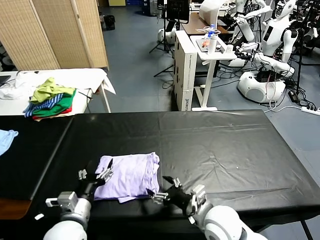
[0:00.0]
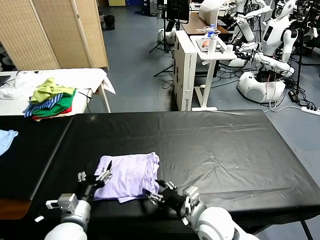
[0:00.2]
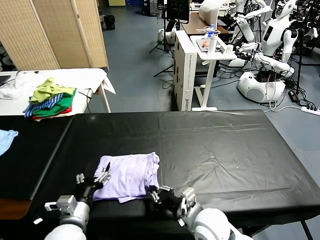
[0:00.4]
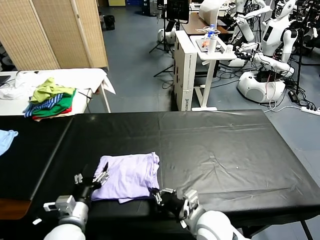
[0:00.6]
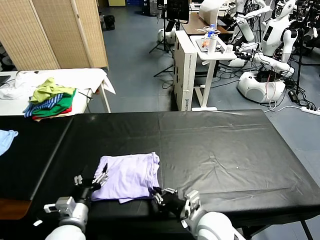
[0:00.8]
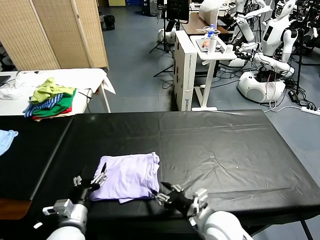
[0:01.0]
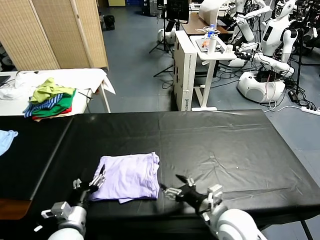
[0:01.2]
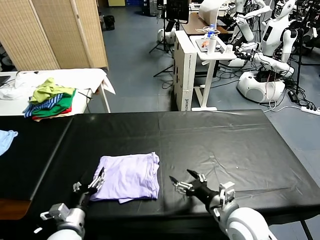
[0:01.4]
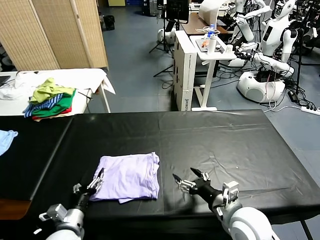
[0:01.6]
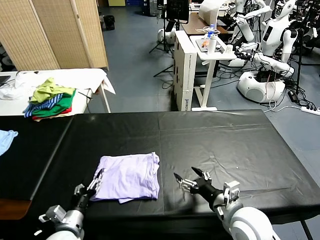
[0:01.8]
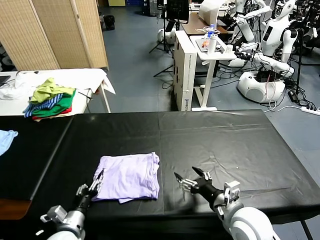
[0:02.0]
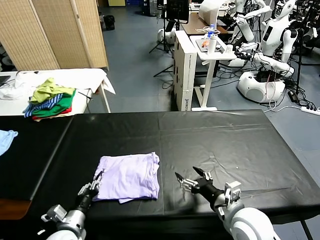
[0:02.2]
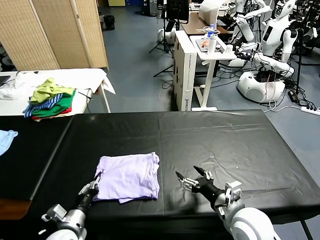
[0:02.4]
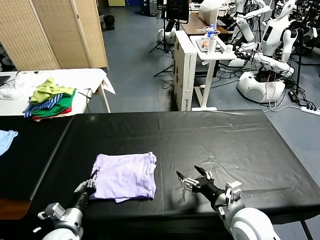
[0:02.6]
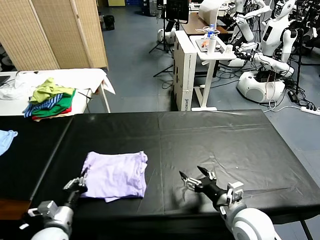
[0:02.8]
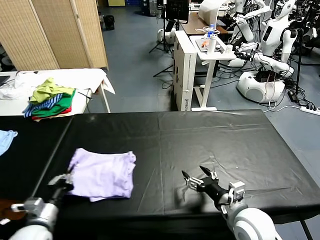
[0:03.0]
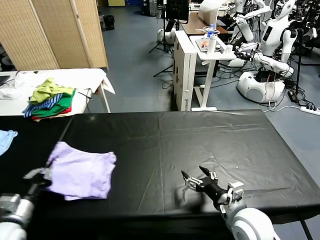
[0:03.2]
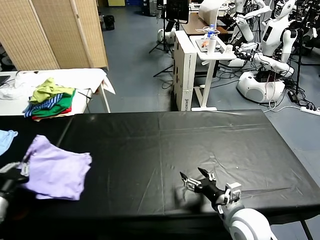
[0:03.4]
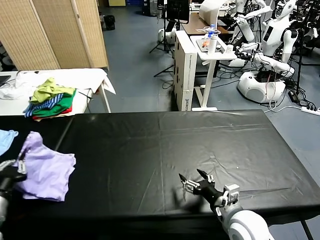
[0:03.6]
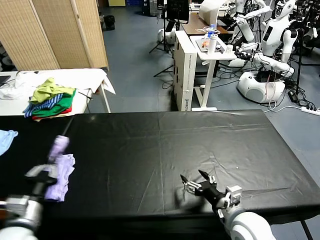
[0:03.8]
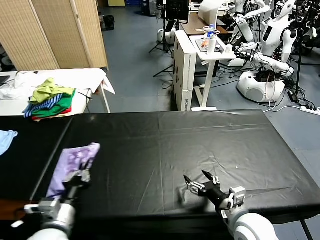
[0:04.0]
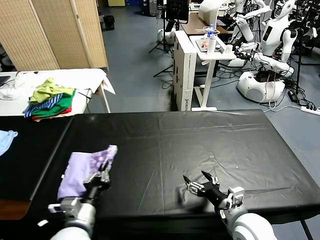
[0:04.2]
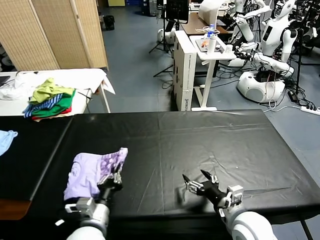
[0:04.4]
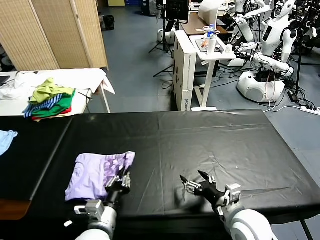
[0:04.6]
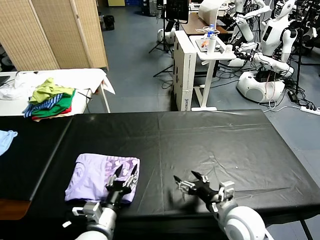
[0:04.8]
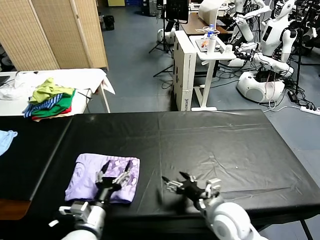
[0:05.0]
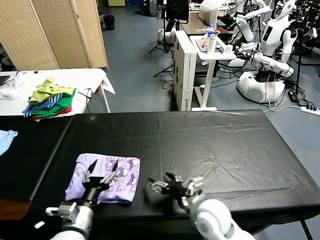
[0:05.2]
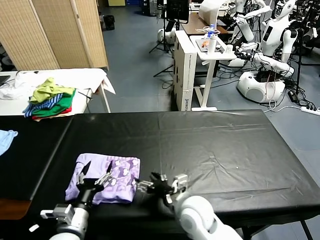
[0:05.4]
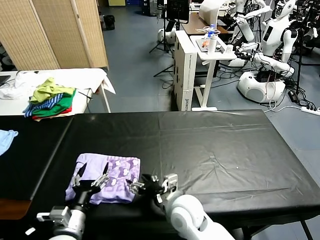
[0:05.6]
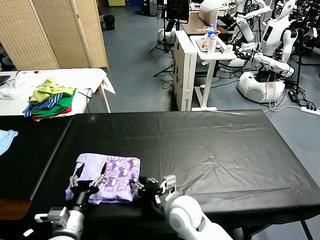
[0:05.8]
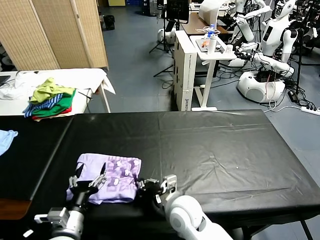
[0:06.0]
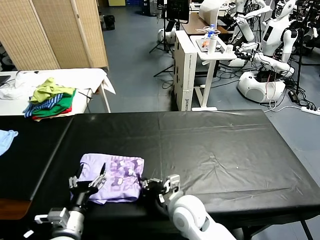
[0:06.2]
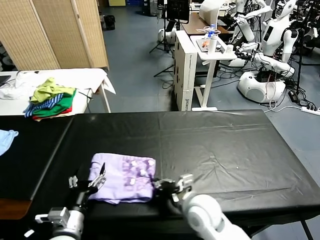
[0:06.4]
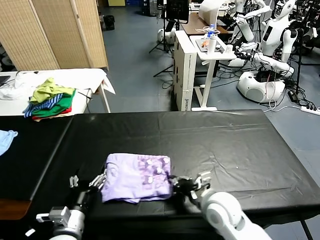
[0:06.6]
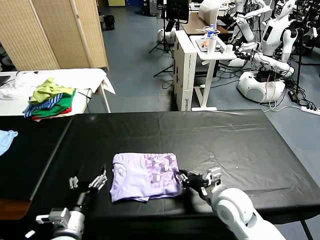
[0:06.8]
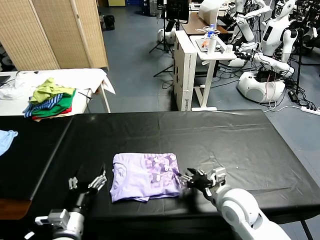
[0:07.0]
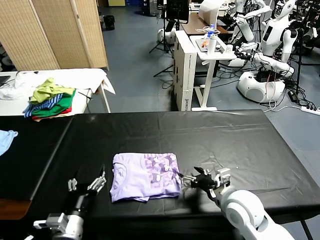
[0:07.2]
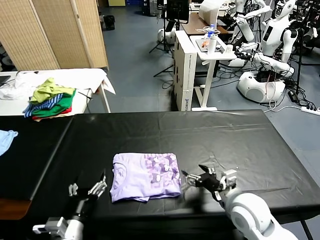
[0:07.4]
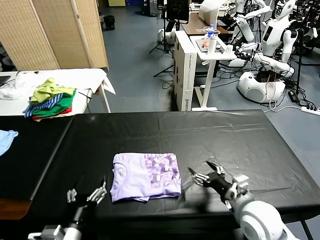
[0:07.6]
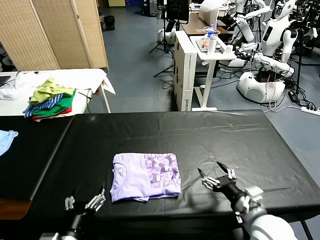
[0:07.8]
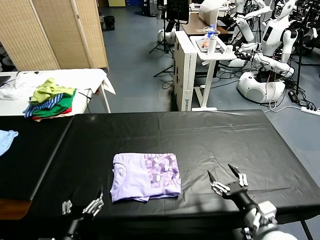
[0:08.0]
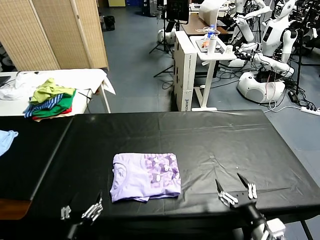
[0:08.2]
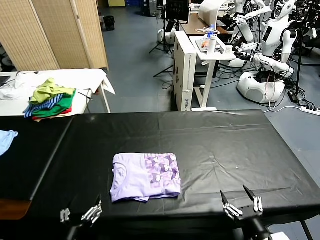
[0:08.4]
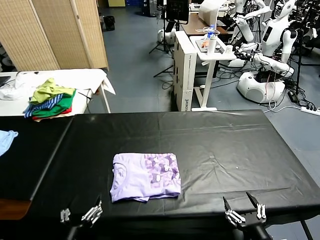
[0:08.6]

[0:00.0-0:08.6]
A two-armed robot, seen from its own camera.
Task of the whole recording: fold and organize the clothes.
Step, 0:00.2 to 0:05.0: Flip the folded clothes over with left gripper.
Step, 0:05.2 to 0:07.2: Drag the clothes to the center of the table.
0:00.0 to 0:01.4: The left gripper is displaced downward by about 5 cm. Meanwhile the right gripper closes, then opens again.
0:01.4 to 0:02.8: The right gripper travels to the right by approximately 5 cm, while the left gripper closes.
0:02.8 to 0:04.4: The left gripper shifts about 10 cm upward, and travels to the left and back again, roughly 15 cm each way.
0:04.4 to 0:05.8: The left gripper opens. The right gripper goes approximately 15 cm to the left.
0:05.8 to 0:07.2: The right gripper goes approximately 15 cm to the right, and closes, then opens again.
0:07.2 to 0:08.6: The right gripper moves backward, approximately 20 cm; the left gripper heads backward, covering about 10 cm.
